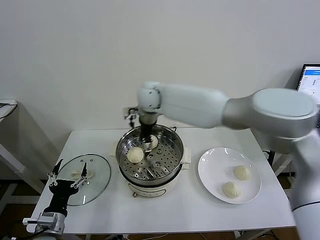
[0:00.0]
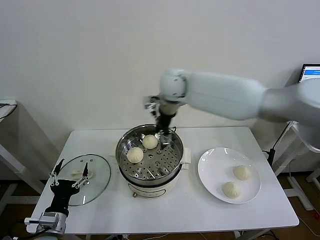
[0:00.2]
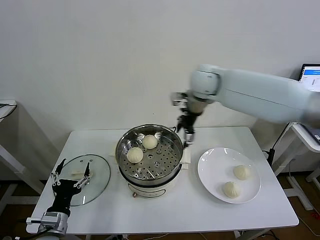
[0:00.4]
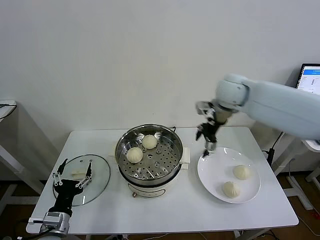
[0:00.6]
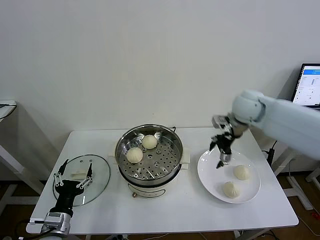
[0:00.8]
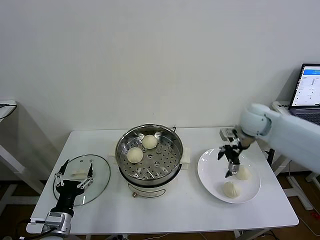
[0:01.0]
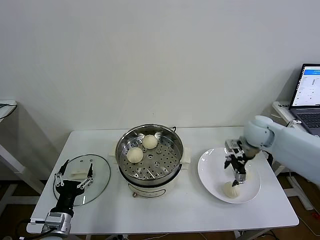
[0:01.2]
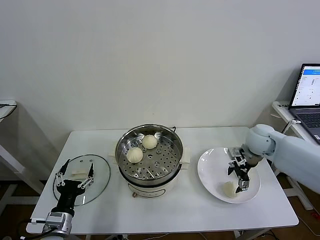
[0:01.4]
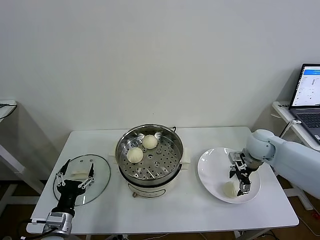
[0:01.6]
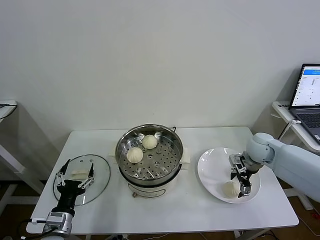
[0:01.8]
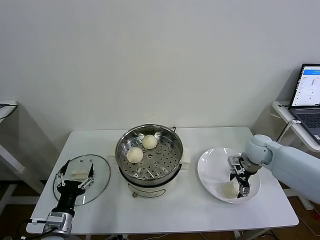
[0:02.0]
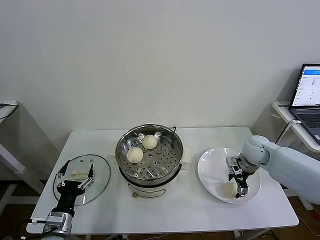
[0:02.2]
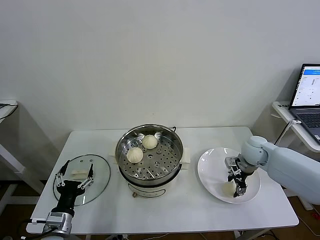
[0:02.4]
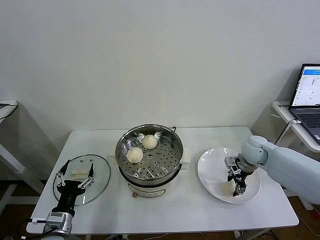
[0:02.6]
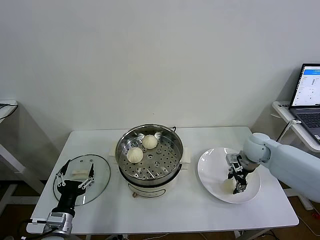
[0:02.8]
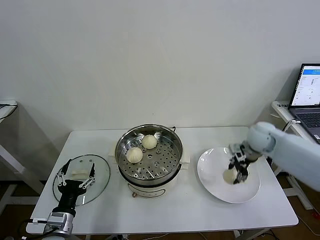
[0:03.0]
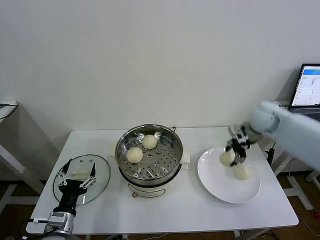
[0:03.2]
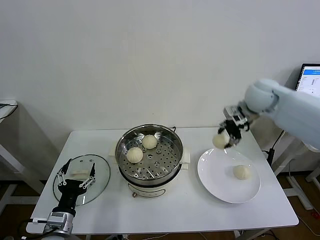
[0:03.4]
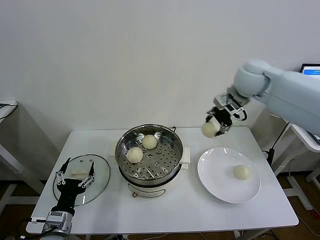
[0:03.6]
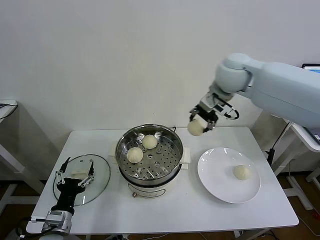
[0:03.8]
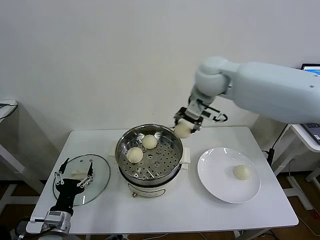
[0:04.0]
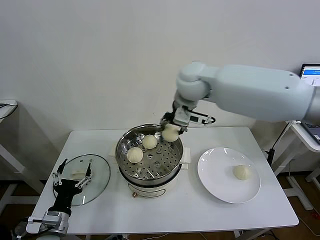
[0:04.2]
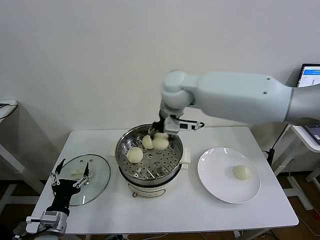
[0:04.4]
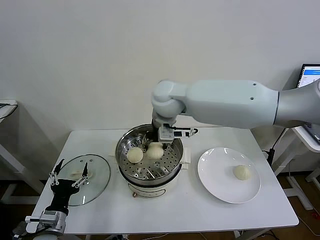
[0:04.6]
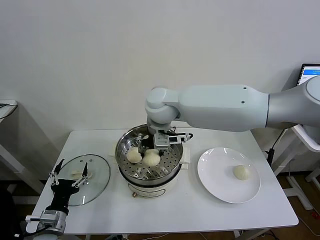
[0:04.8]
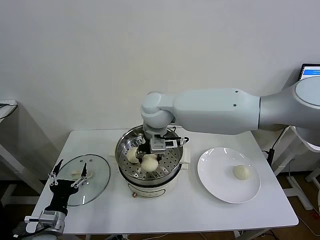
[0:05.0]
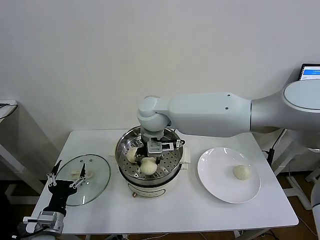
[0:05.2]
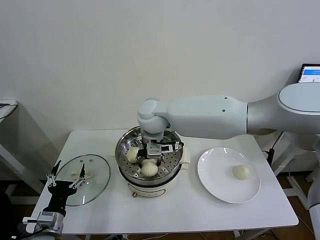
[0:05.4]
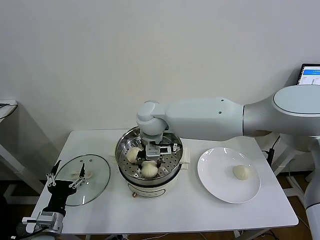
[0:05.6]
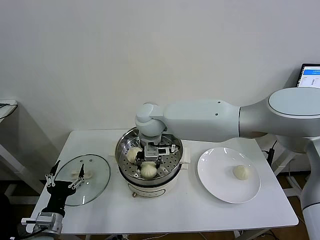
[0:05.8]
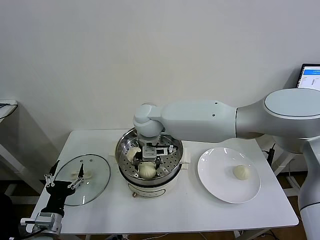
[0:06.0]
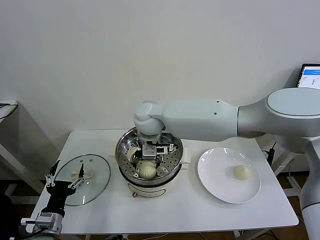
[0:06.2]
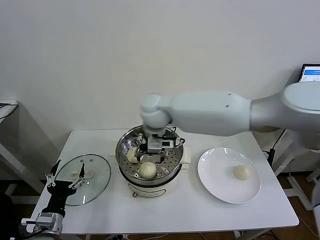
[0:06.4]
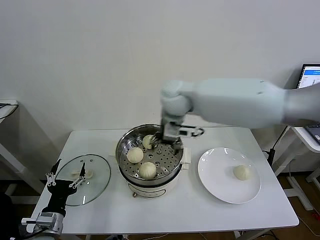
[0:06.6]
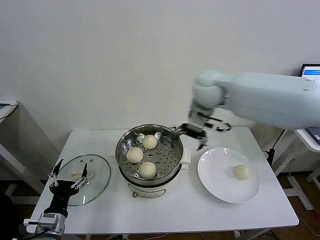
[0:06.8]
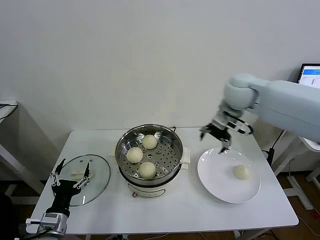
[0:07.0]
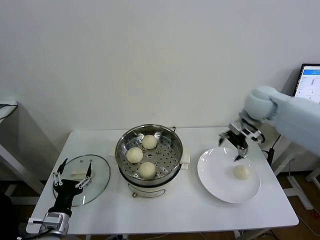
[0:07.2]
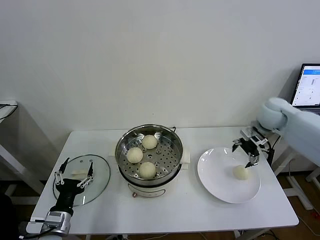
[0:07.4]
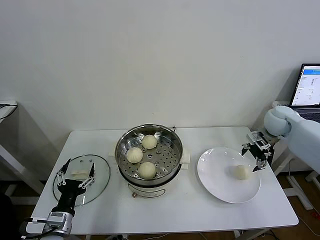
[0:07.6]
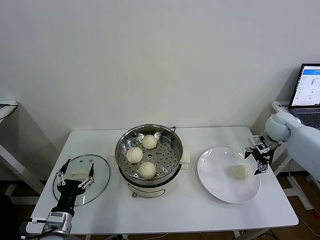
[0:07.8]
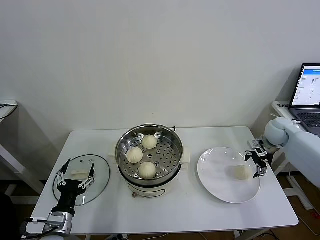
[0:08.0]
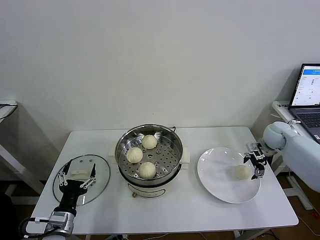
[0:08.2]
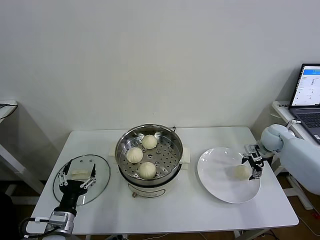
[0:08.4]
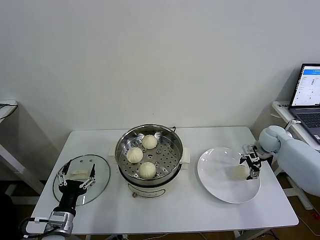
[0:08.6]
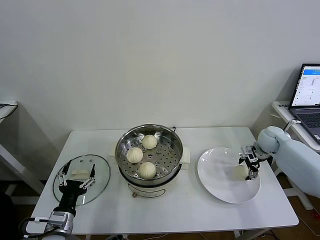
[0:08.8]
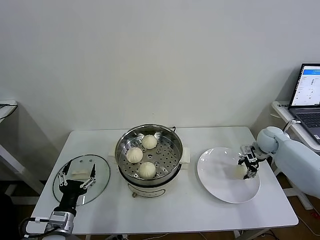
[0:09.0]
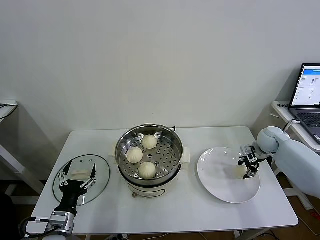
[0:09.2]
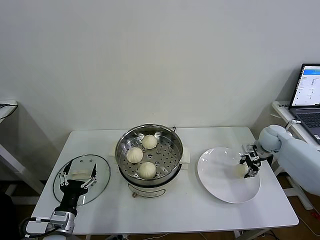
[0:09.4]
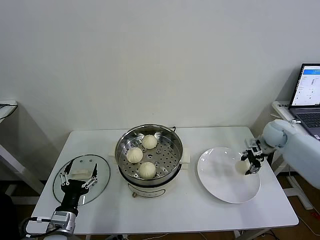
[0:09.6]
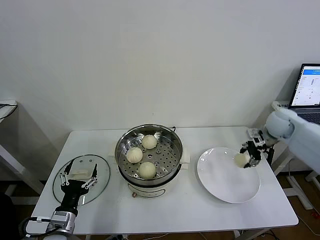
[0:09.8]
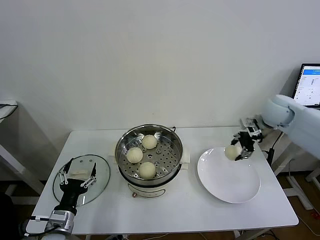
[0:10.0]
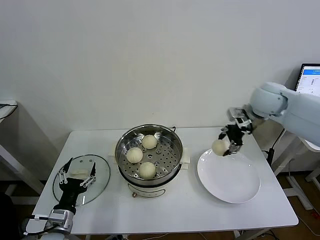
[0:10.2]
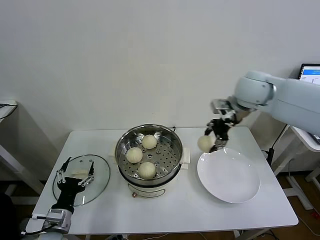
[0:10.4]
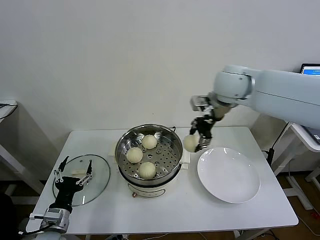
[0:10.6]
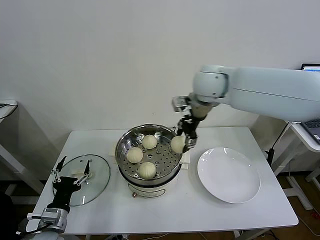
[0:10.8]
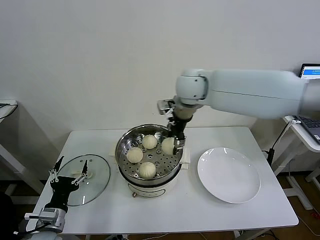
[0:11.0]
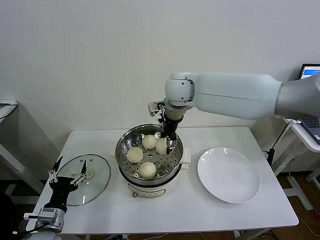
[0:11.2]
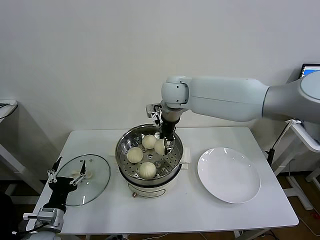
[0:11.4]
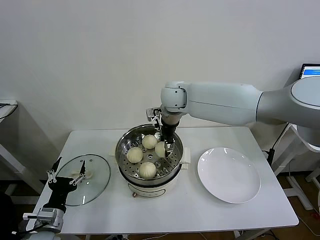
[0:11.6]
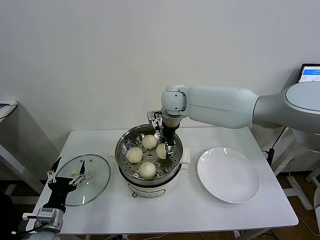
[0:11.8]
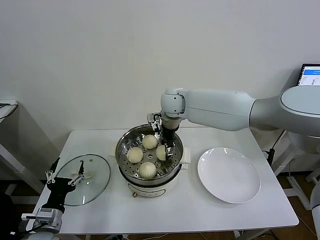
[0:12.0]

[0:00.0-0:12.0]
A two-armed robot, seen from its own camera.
Task of the whole recording: take steamed baozi put them in steamer then cover it.
Step, 0:00.0 to 0:02.4: Grasp the baozi in the plate with right gripper.
Step, 0:02.6 to 0:06.0: Place the baozi on the steamer with right gripper.
Step, 0:06.4 to 0:09.0: Grasp the baozi in the plate with right gripper.
0:00.0 to 0:01.6: The right gripper goes approximately 40 cm to the right and downward.
0:01.6 to 0:03.0: The right gripper closes its fingers.
0:03.0 to 0:04.4: The right gripper moves to the left and upward, some 35 cm.
0:04.4 to 0:06.0: The right gripper heads downward and to the left, covering some 10 cm, and opens up.
0:06.0 to 0:07.6: The right gripper moves to the right, about 50 cm.
0:07.6 to 0:09.0: The right gripper goes some 10 cm downward, and closes up.
0:09.0 to 0:10.4: The right gripper travels upward and to the left by some 30 cm.
0:10.4 to 0:12.0: The right gripper moves to the left and downward, some 20 cm.

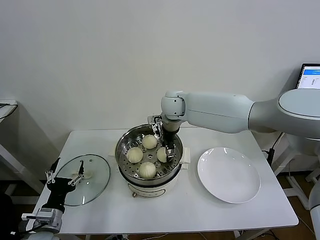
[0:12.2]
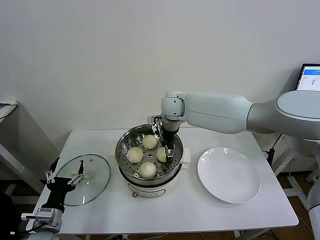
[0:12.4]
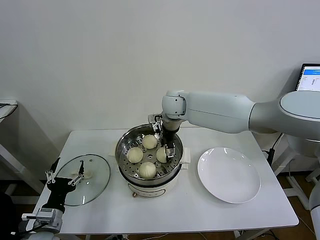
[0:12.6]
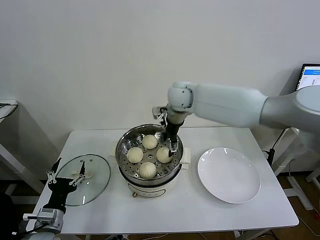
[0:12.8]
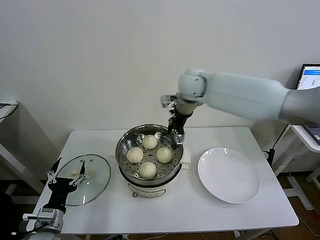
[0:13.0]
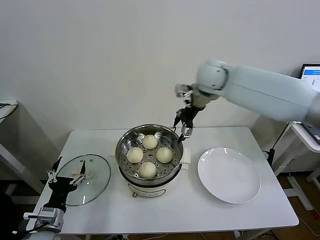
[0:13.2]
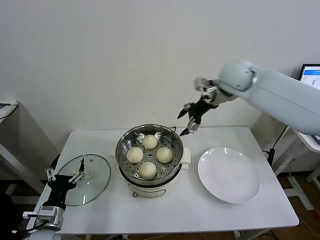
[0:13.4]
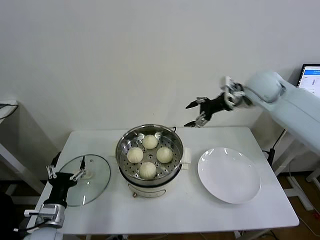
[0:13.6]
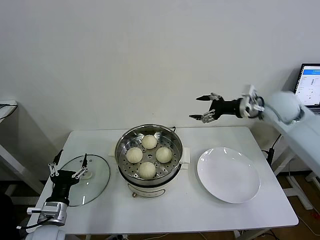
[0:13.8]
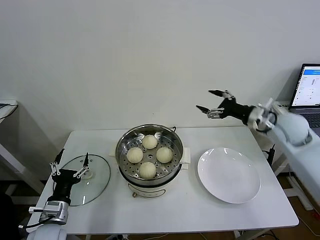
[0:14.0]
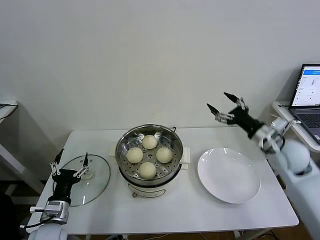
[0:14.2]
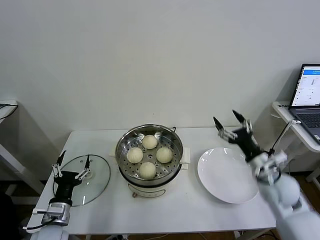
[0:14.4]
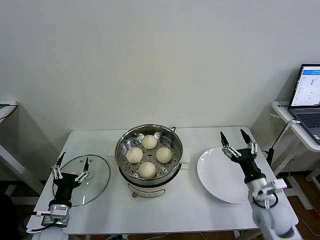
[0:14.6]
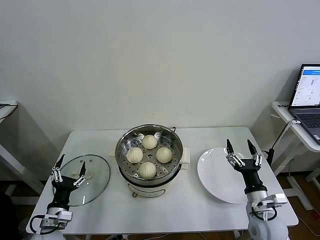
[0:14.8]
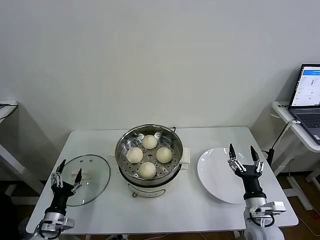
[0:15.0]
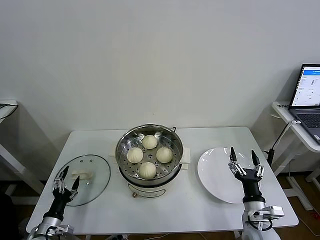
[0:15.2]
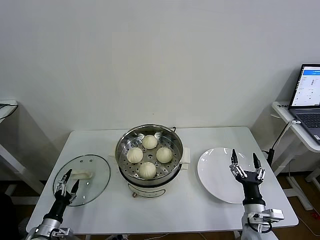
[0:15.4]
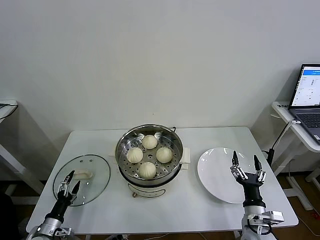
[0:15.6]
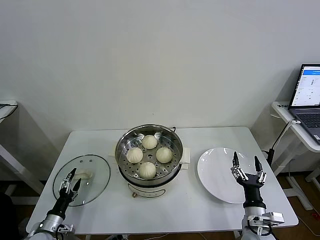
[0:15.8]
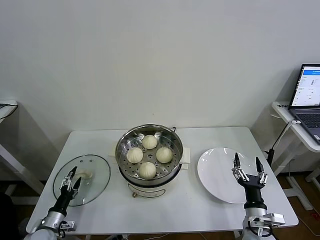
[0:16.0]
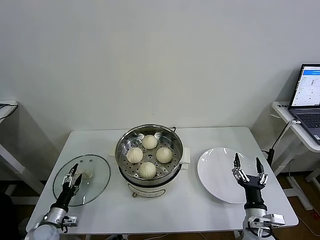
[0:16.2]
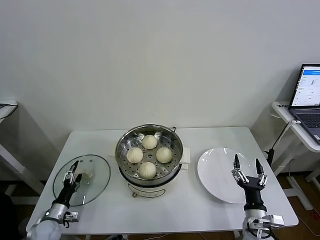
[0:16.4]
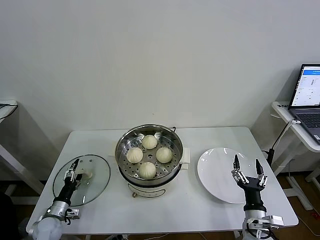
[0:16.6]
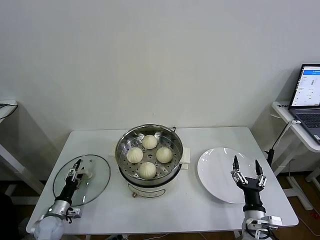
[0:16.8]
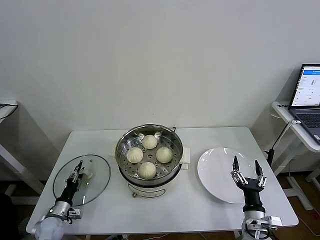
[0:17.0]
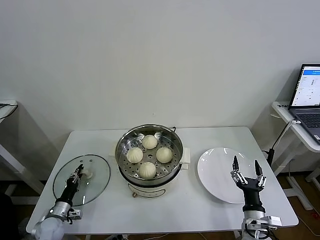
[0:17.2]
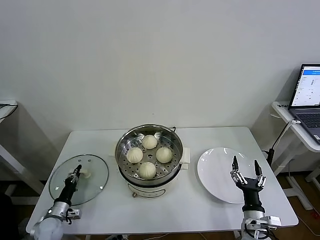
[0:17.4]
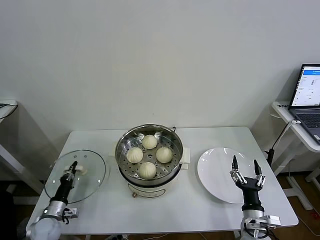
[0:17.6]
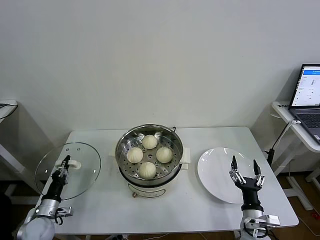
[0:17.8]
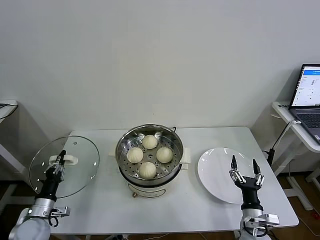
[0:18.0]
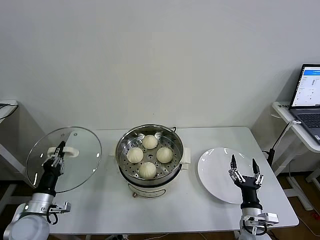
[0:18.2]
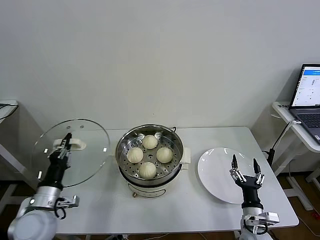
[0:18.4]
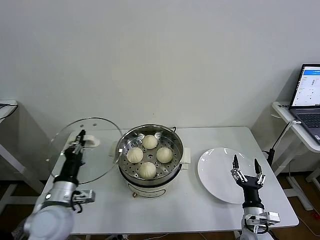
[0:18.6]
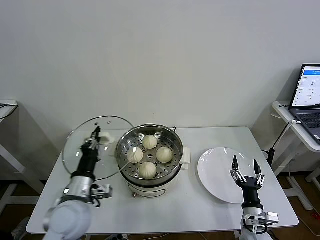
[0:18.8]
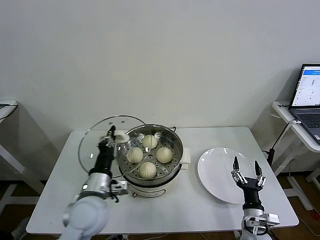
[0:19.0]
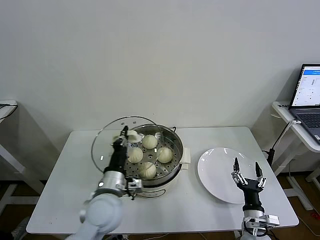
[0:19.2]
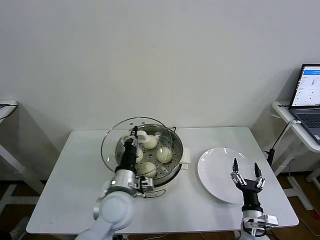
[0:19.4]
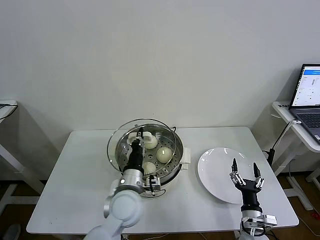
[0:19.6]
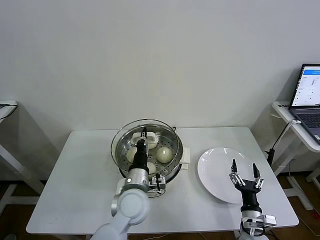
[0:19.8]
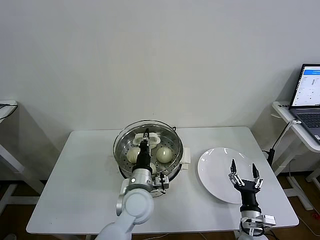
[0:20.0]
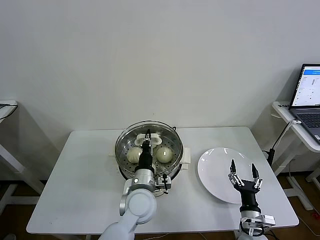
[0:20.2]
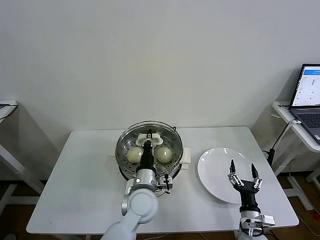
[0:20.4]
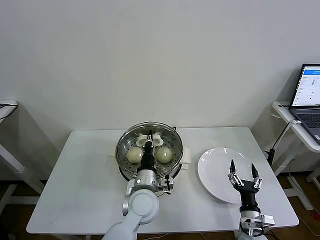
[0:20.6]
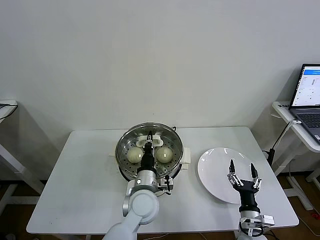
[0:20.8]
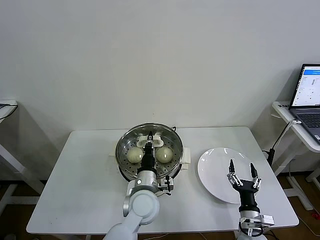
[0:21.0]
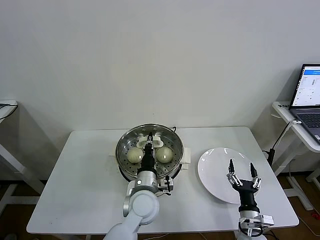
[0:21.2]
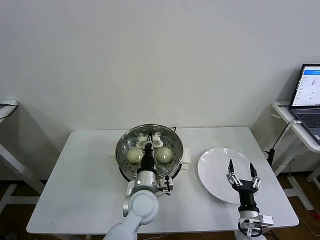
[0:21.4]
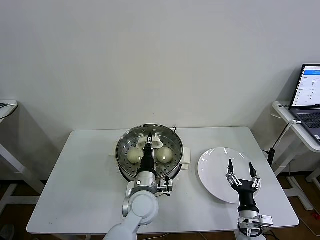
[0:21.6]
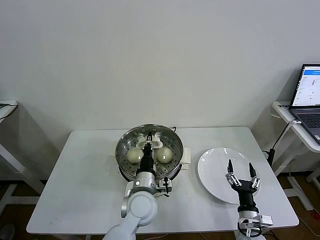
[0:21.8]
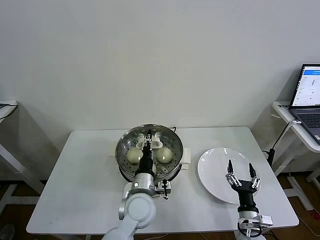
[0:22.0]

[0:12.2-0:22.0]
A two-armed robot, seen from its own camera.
Task of the whole recording: take steamed baozi put them in steamer then cover it.
Step, 0:12.8 to 0:17.4: Grasp the pot lid with left gripper.
0:12.2 to 0:13.6: The right gripper heads to the right, covering roughly 25 cm, and opens up.
0:13.6 to 0:15.0: The right gripper is displaced downward and backward by some 40 cm. Meanwhile the left gripper travels downward by approximately 10 cm.
0:15.0 to 0:16.4: The left gripper heads downward and to the left, covering roughly 10 cm.
0:16.4 to 0:17.8: The left gripper closes up.
0:17.8 to 0:19.2: The left gripper is displaced to the right and upward by roughly 35 cm.
0:19.2 to 0:20.6: The left gripper goes some 10 cm to the right and downward.
0:20.6 to 0:22.0: Neither gripper changes place.
